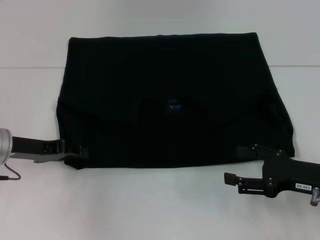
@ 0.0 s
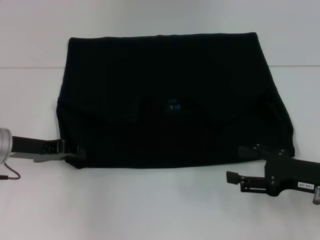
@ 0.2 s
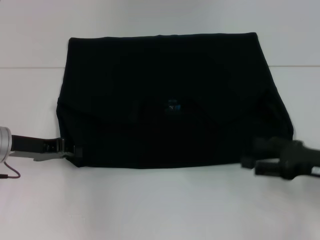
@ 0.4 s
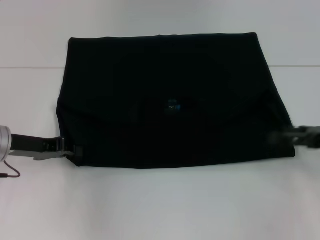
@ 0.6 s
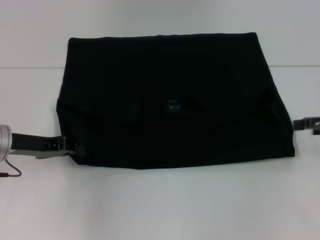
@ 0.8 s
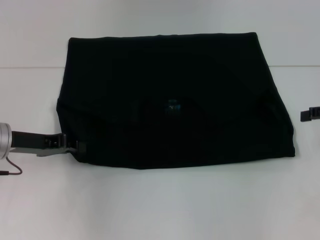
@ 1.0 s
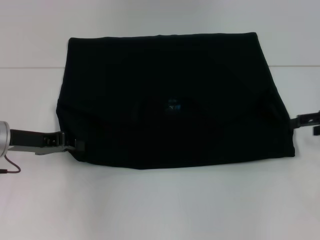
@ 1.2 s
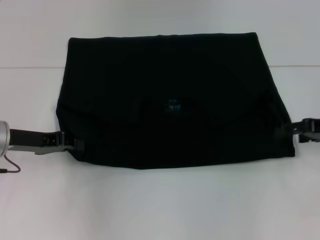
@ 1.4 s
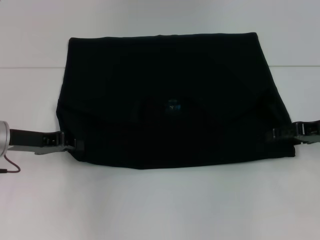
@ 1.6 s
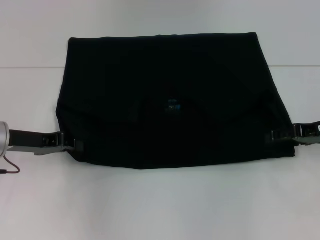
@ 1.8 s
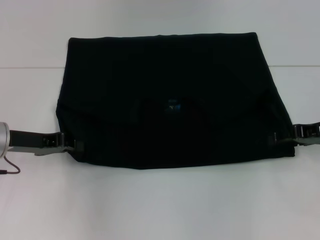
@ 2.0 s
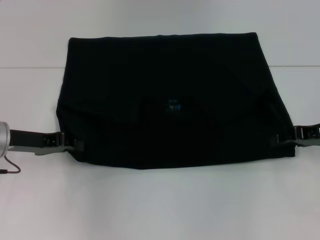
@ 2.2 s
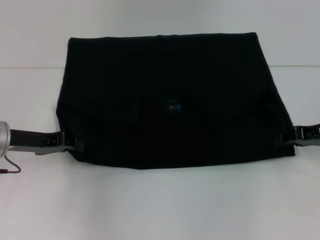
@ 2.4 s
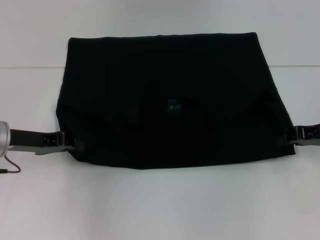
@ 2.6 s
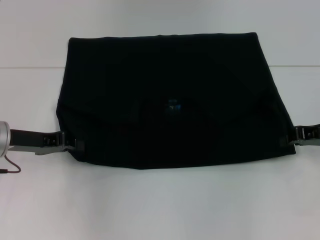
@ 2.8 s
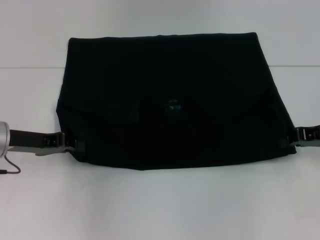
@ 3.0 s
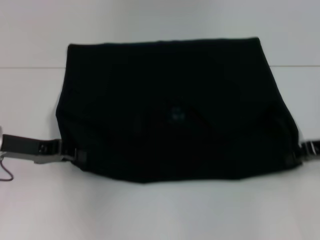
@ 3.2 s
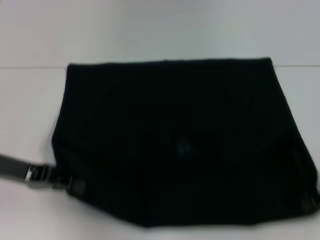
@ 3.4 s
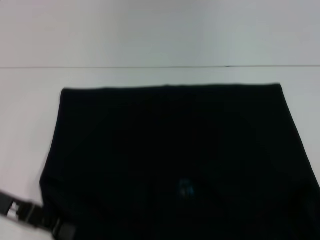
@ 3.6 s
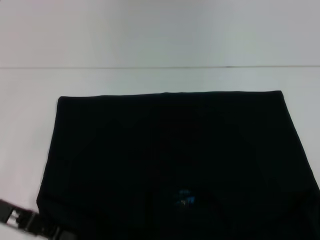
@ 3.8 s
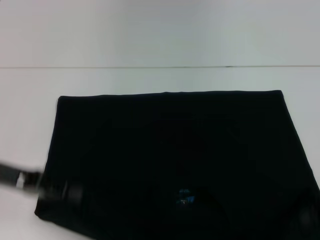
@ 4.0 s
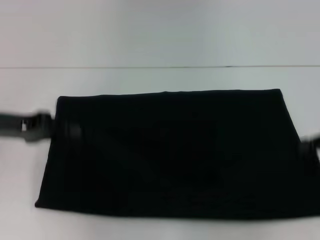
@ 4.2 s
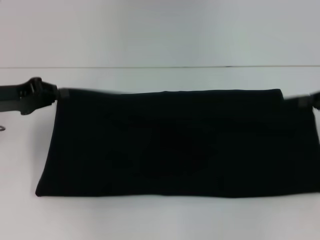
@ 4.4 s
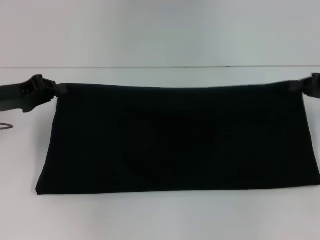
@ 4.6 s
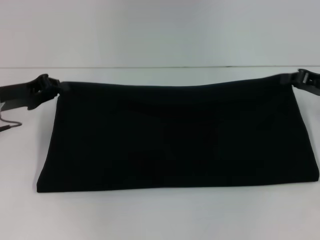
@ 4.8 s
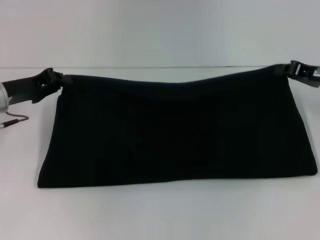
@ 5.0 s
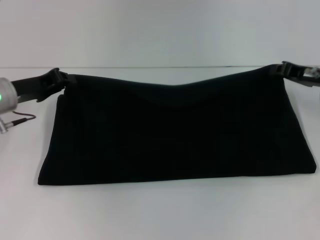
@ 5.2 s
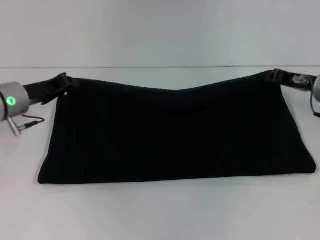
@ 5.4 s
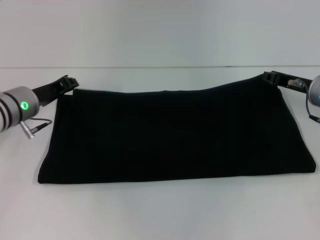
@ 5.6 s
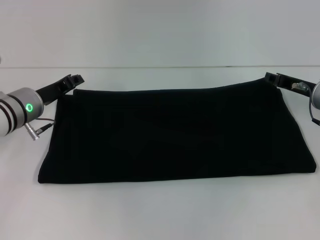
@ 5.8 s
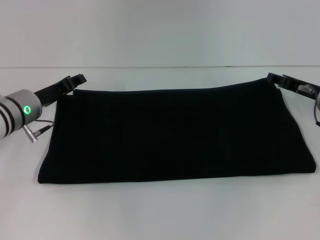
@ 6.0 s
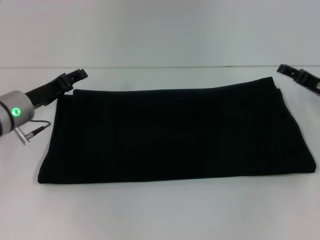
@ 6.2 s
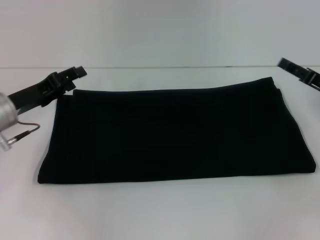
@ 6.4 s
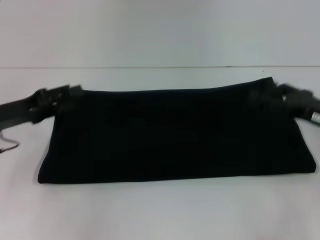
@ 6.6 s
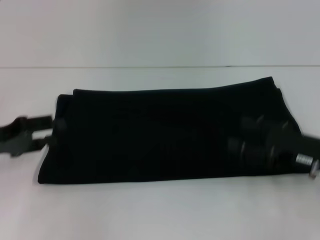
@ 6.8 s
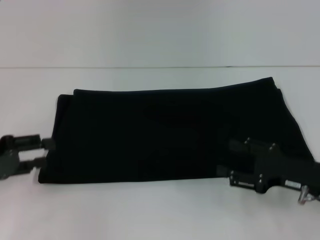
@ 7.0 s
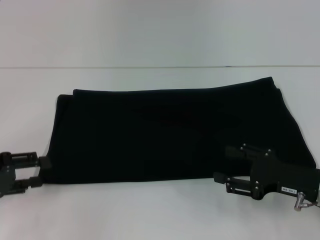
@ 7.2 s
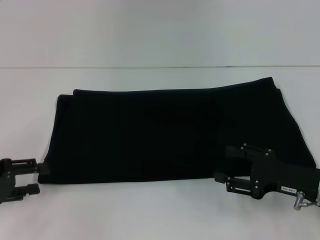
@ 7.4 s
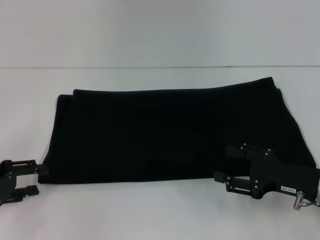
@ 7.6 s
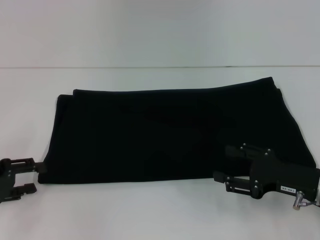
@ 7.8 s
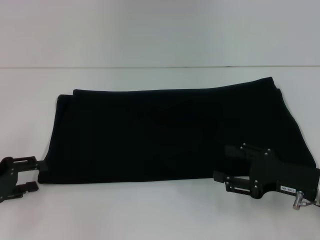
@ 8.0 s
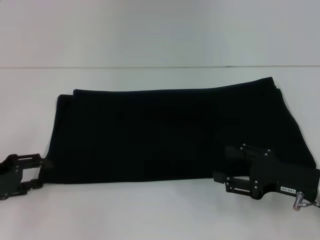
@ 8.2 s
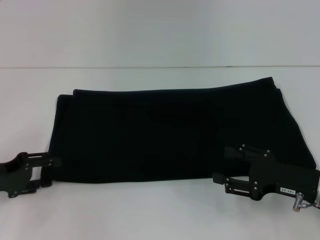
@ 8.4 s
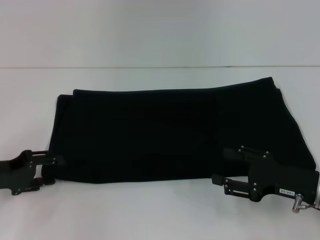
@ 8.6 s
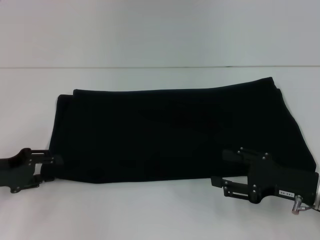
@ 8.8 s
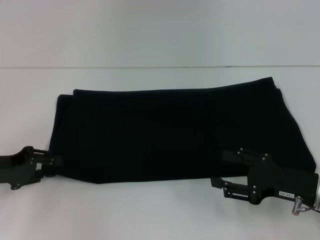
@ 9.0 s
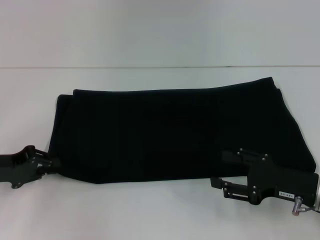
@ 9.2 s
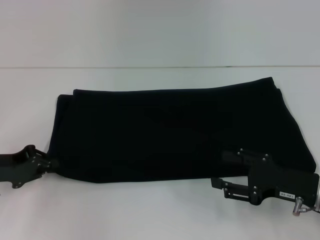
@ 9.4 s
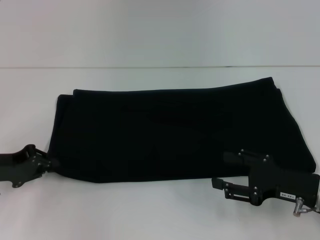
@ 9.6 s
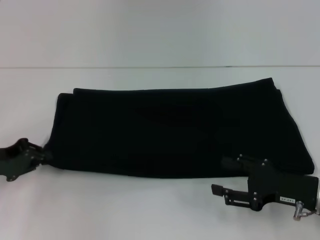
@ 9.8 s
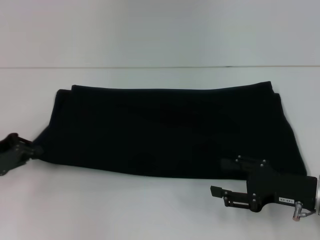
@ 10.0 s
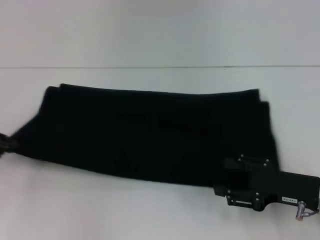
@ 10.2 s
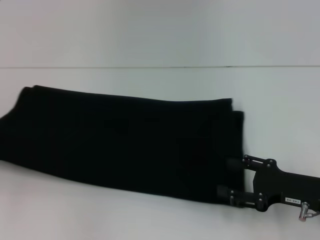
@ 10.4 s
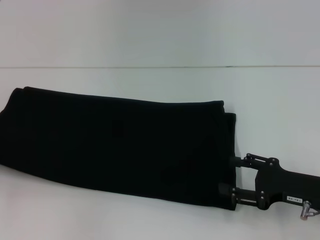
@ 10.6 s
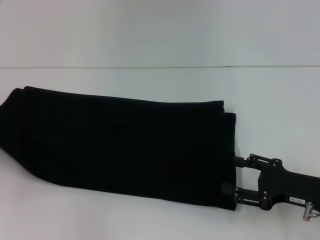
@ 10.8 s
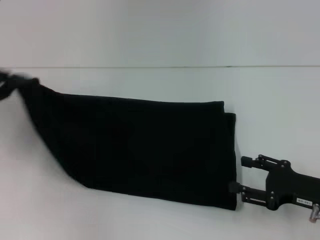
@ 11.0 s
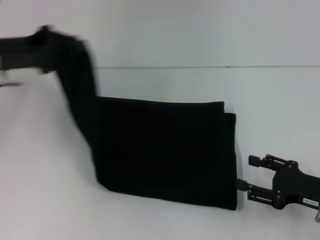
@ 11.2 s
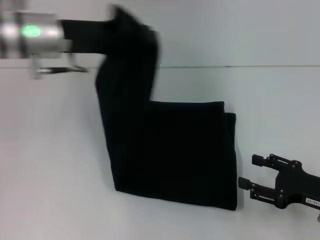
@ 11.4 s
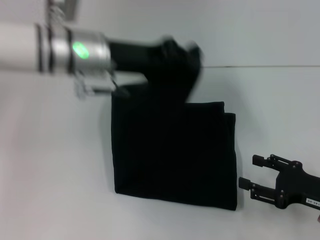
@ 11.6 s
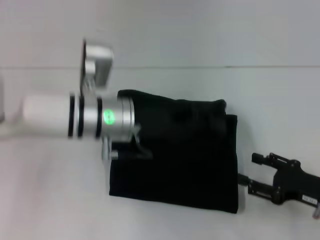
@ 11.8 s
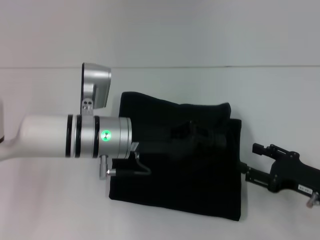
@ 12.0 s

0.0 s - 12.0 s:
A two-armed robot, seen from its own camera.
Step, 0.0 s - 3.6 s: Pull the clothes with your left hand.
Step, 0.0 s - 3.6 s: Pull the clothes with your right hand.
Step, 3.8 s - 6.0 s: Fold the clothes with your right hand.
0.0 s - 1.6 s: The right gripper goes approximately 10 cm forward and upward, while the left gripper closes its fingers.
1.6 s - 3.0 s: The right gripper closes up.
3.0 s - 4.4 s: The left gripper reaches roughly 5 cm backward, then returns. The right gripper goes backward and returns, about 10 cm each way.
4.4 s - 6.0 s: The left gripper heads to the right and downward, covering about 10 cm, while the right gripper shifts some 10 cm to the left and downward, and opens.
6.0 s - 7.6 s: The right gripper goes approximately 15 cm backward, and opens. Meanwhile the left gripper moves backward and to the left, about 15 cm, and opens.
7.6 s - 9.0 s: There are only small adjustments of the grippers.
9.0 s - 10.4 s: The left gripper is displaced to the left by roughly 10 cm, and closes its fingers.
10.4 s - 12.0 s: The left gripper heads to the right, covering roughly 30 cm.

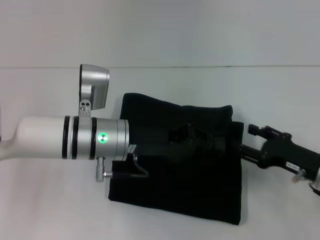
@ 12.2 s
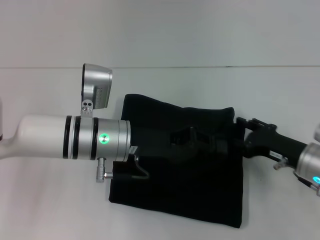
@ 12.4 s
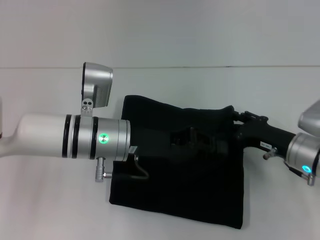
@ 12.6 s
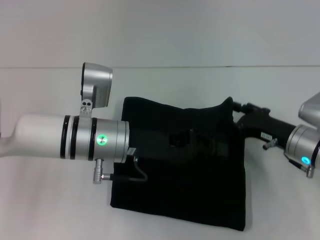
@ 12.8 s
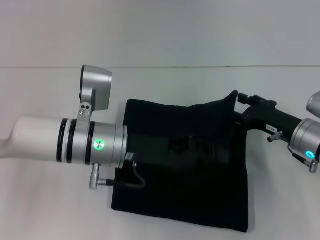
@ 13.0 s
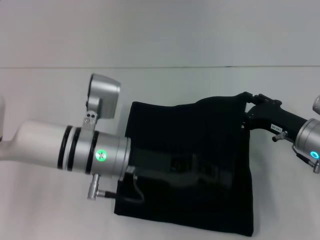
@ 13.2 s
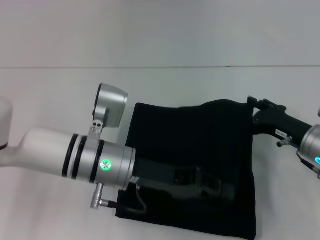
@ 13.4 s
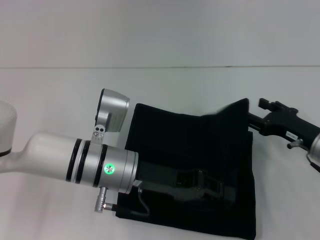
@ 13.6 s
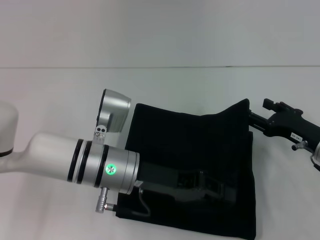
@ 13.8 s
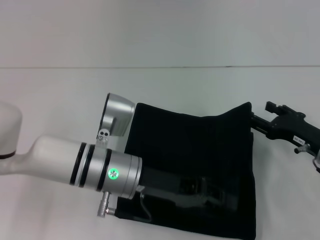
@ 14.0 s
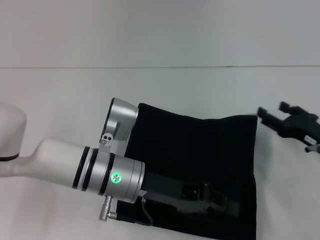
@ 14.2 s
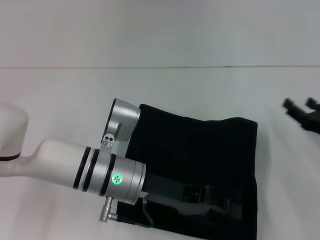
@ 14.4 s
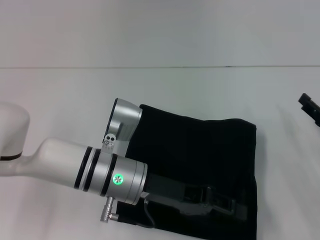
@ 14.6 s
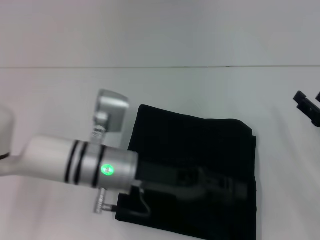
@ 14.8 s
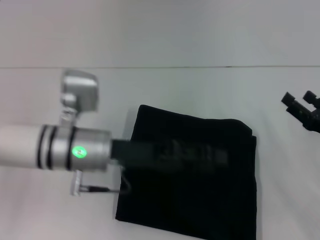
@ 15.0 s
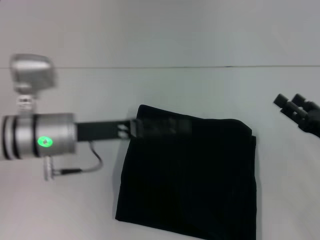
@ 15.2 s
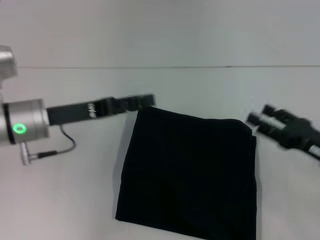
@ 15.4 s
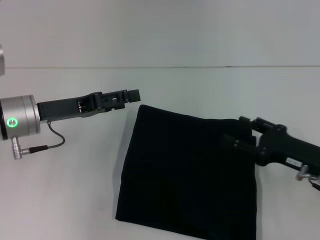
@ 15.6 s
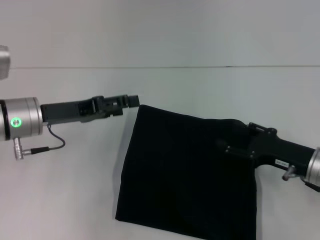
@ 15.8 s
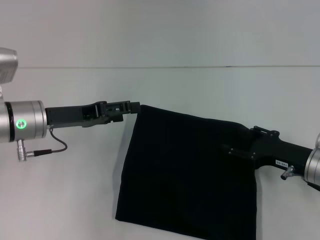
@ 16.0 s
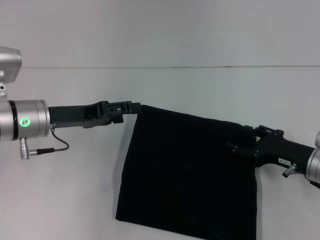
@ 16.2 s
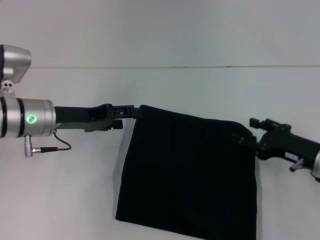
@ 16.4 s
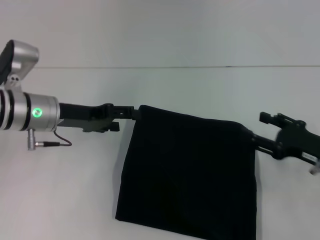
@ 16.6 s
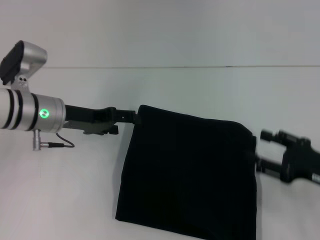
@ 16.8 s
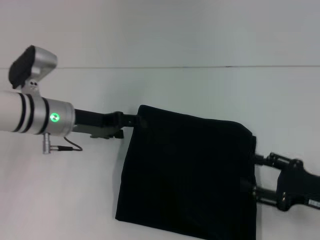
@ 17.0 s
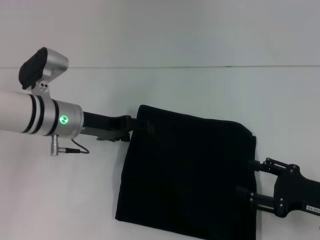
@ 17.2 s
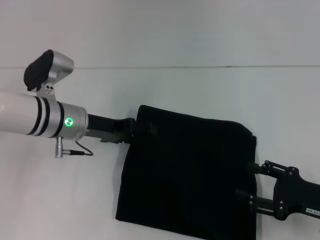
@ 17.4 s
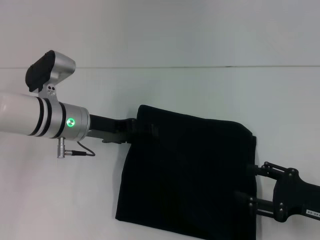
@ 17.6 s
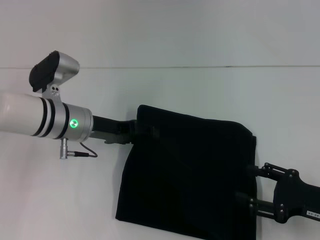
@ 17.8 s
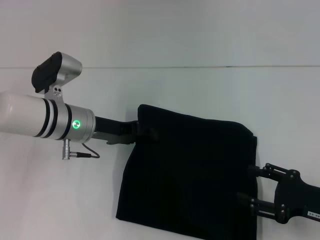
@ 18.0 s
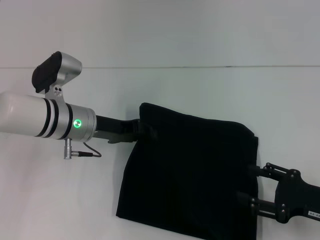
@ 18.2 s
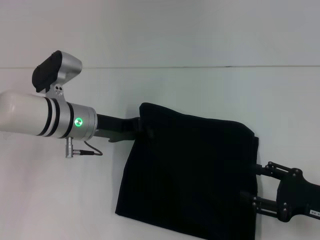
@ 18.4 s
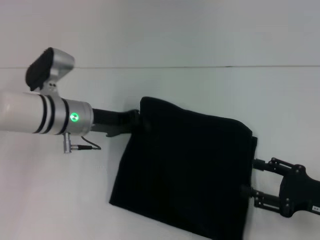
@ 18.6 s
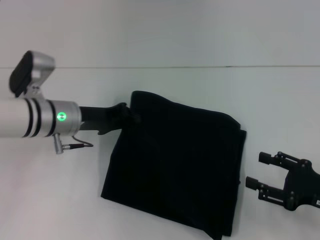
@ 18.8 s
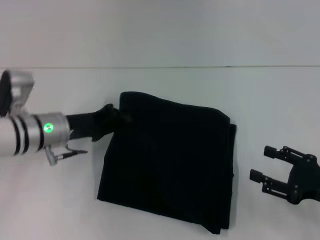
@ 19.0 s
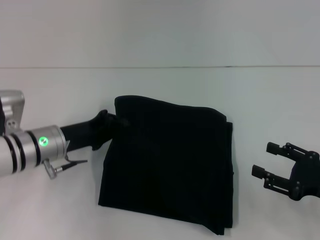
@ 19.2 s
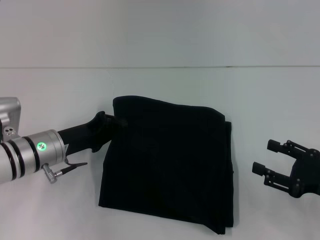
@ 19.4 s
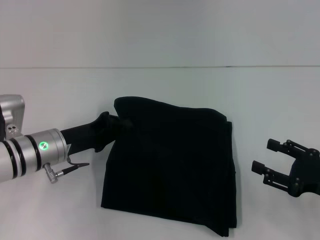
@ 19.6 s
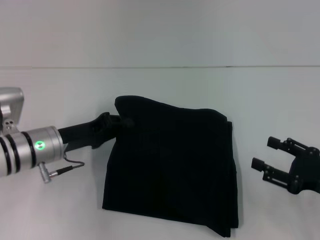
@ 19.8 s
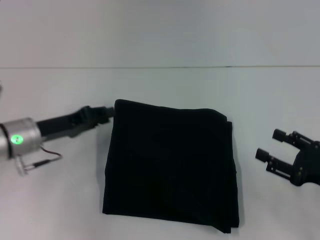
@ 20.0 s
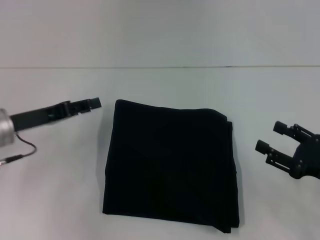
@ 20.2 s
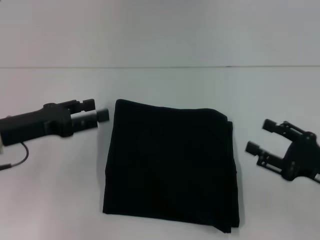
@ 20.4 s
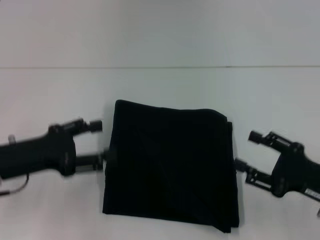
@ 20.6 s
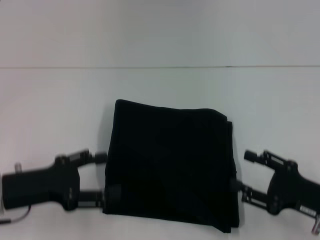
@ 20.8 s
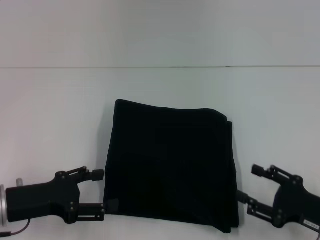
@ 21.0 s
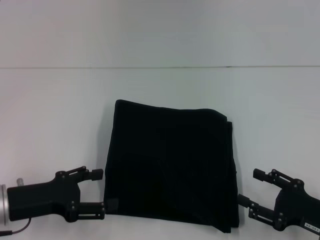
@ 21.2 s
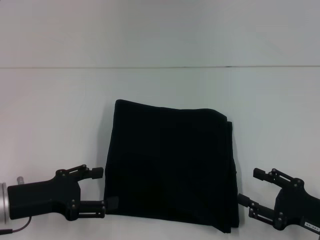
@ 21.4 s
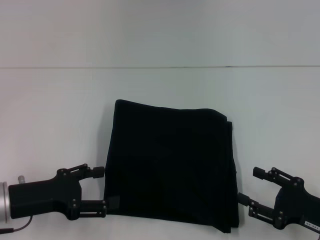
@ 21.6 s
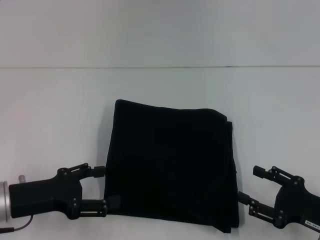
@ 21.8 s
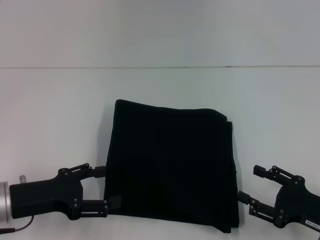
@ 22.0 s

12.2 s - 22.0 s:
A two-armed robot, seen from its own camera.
Step, 12.2 s - 14.8 s: Fold the clothes with your left hand.
13.6 s - 15.0 s: The right gripper ends up about 5 cm from where it was. Meanwhile the left gripper opens.
15.0 s - 16.4 s: The left gripper goes roughly 10 cm to the left and forward, and opens.
16.4 s - 17.8 s: The right gripper heads backward, covering roughly 5 cm. The left gripper heads to the right, covering about 5 cm.
17.8 s - 19.2 s: The left gripper changes place by some 5 cm, and closes.
19.2 s - 20.6 s: The left gripper is displaced backward, to the left and upward by about 10 cm, and opens.
20.6 s - 22.0 s: The left gripper changes place by approximately 5 cm.
